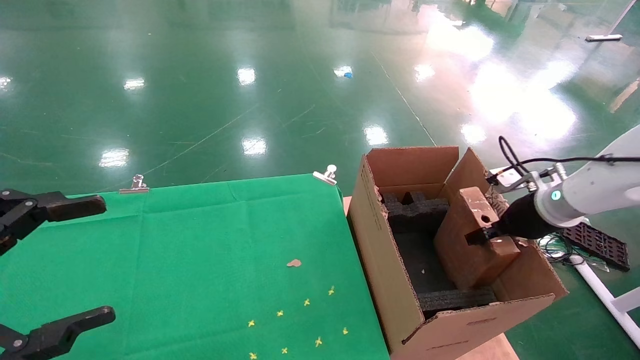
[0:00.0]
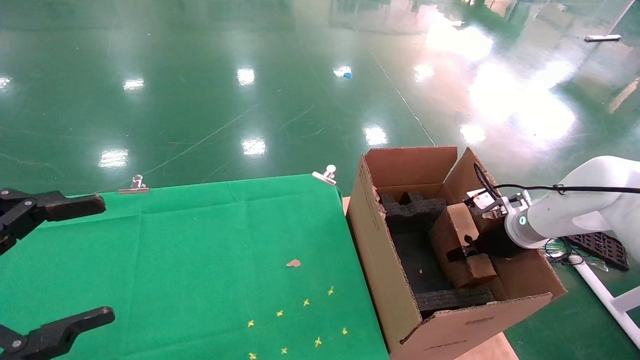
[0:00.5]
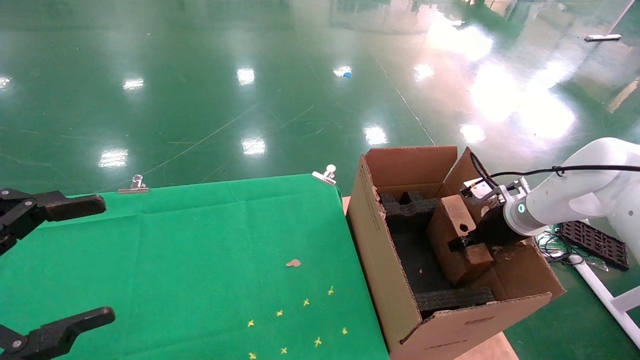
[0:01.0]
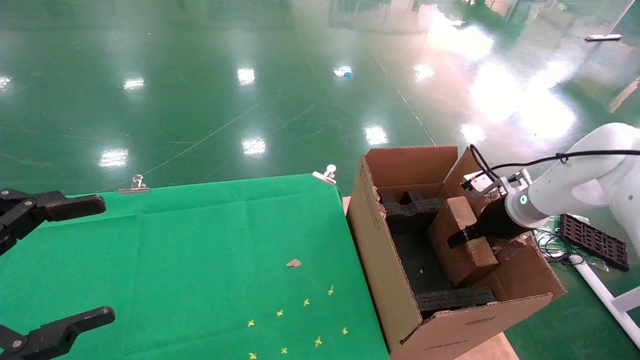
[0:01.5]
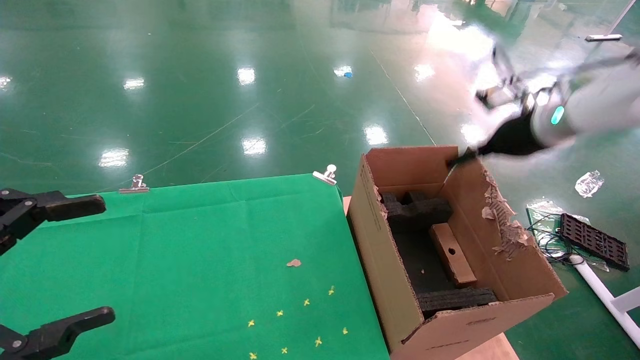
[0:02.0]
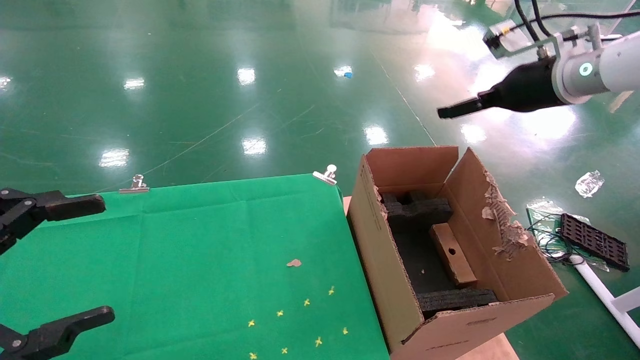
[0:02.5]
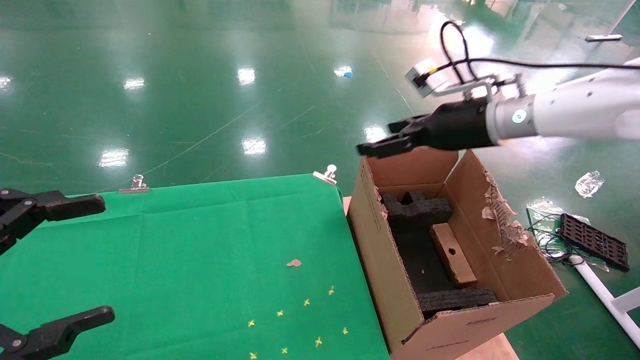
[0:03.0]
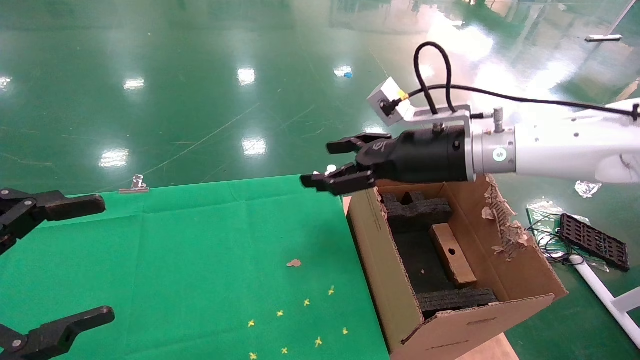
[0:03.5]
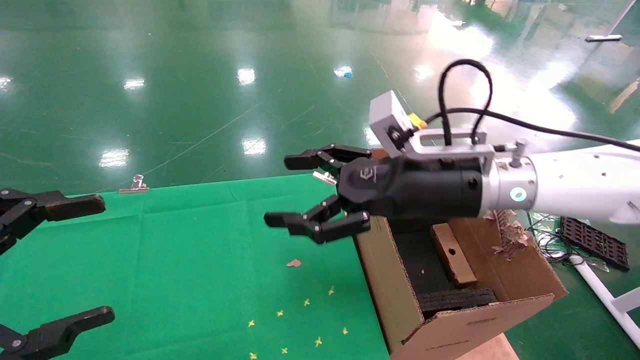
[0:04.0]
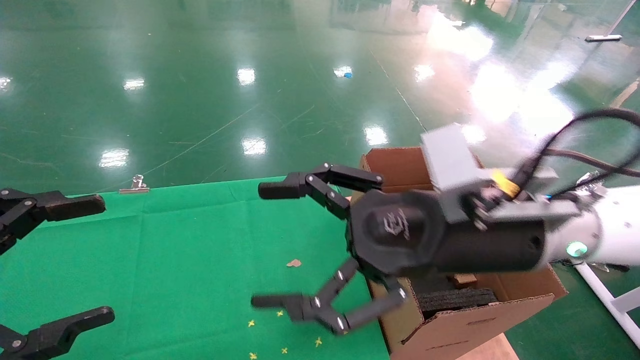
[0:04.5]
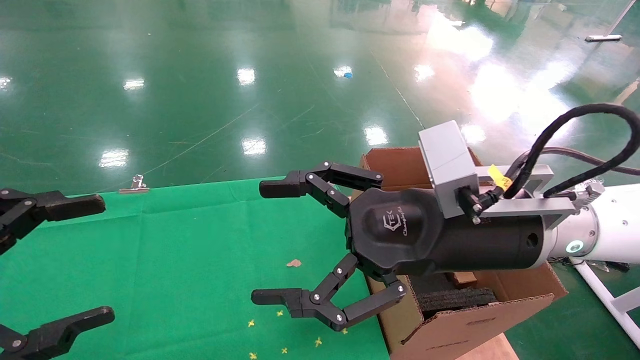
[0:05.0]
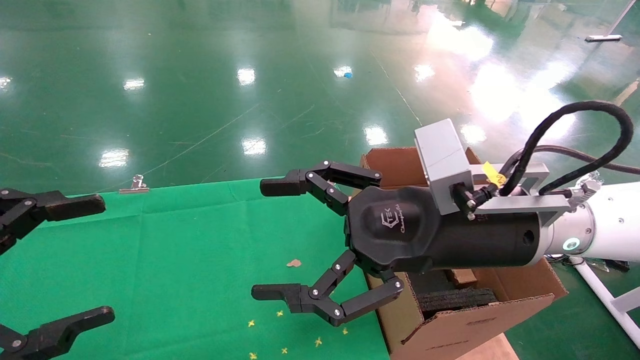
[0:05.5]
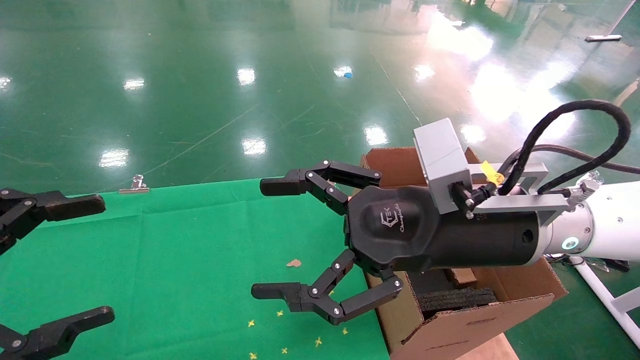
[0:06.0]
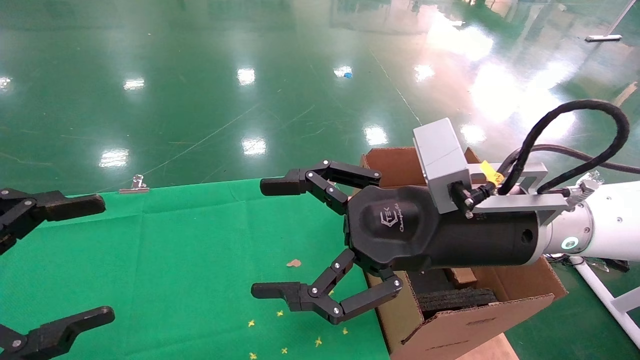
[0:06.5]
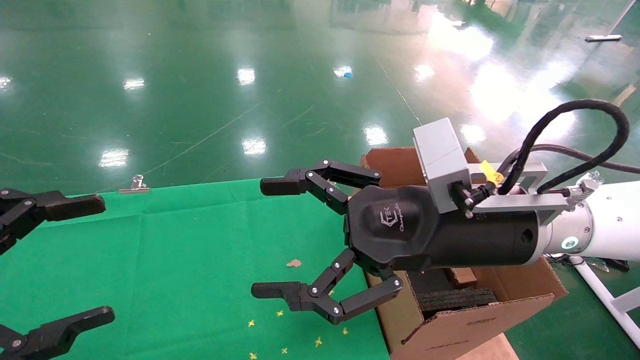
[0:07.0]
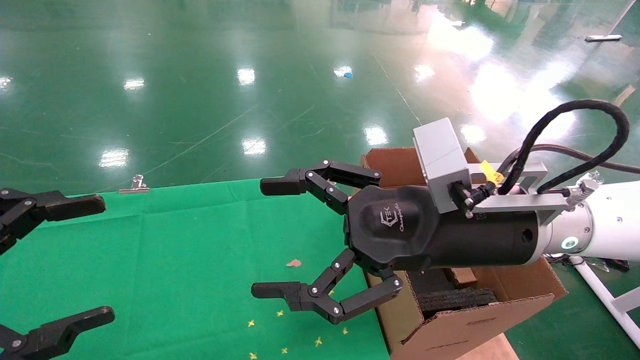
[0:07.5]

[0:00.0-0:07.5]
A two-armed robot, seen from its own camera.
Task of the whole recording: using a robotic arm to pick up a cardboard box and palace it the carton.
Step, 0:00.0 to 0:02.0: Place the mouse and the power cord paper box into the container.
0:00.0 to 0:02.0: The right gripper is displaced upward by about 10 cm, and opens.
0:02.0 to 0:04.0: The right gripper is displaced to the left and backward by approximately 25 cm.
0:04.0 to 0:05.5: The right gripper is displaced backward by some 5 cm.
0:05.5 to 0:07.5: Both grippers stay put.
